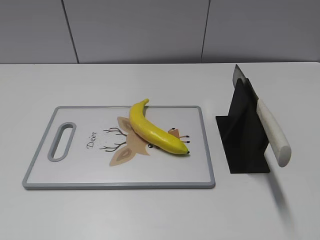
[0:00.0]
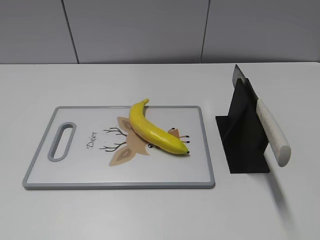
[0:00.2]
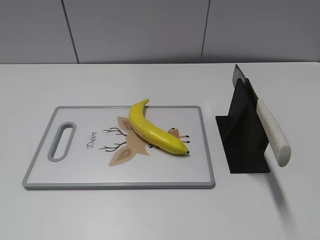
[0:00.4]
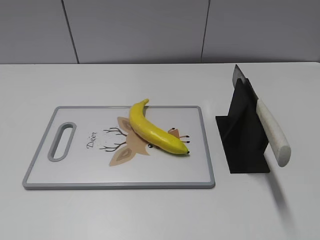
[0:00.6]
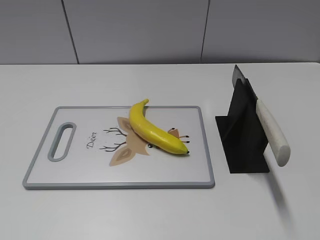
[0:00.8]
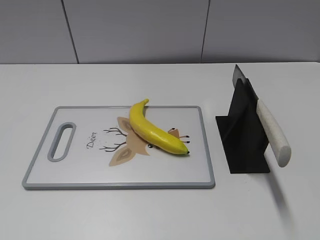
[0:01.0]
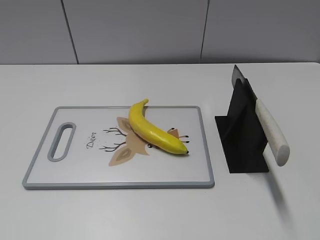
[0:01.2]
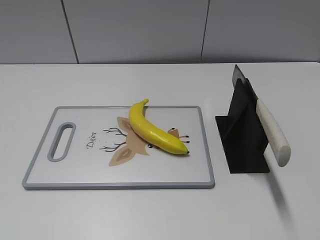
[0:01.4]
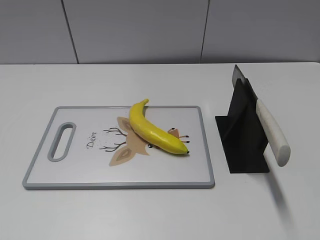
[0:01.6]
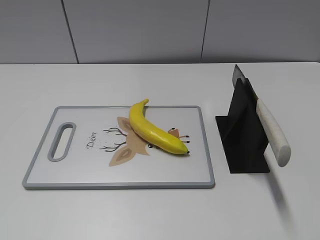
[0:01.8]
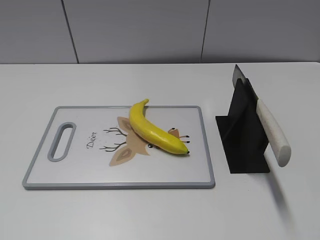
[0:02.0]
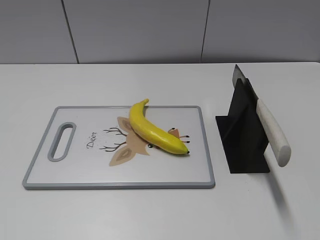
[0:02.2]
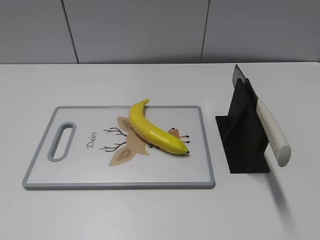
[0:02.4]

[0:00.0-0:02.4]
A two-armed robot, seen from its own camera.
Task of the whole recording: cut plastic banana.
Step, 0:00.0 to 0:02.4: Place the knife on the storage rack with your right hand.
0:00.0 to 0:01.2: The right gripper goes about 5 cm backward.
